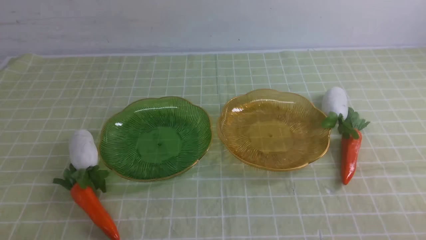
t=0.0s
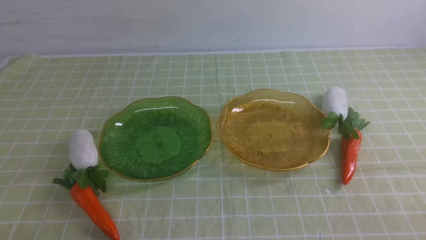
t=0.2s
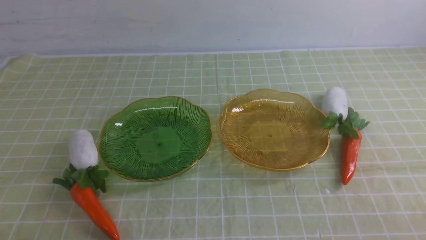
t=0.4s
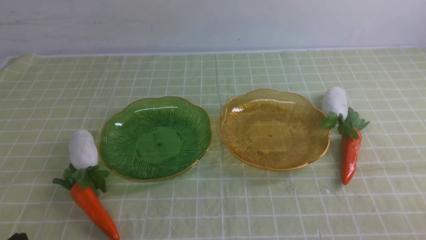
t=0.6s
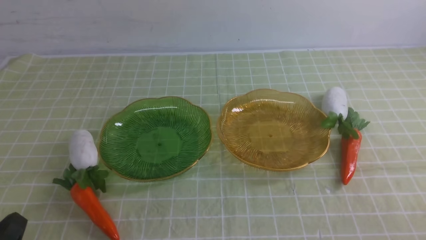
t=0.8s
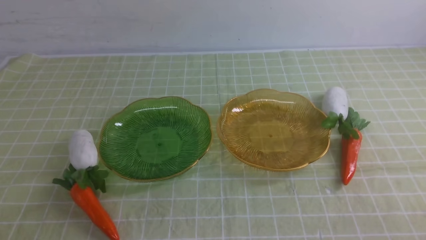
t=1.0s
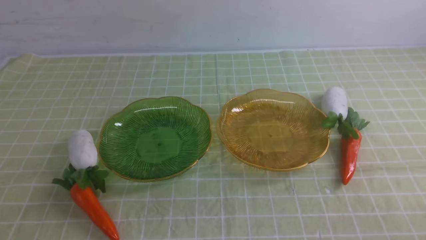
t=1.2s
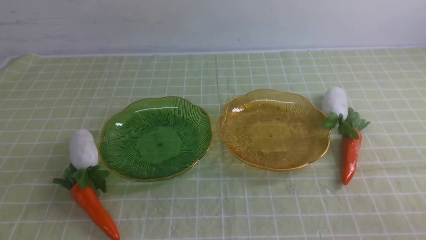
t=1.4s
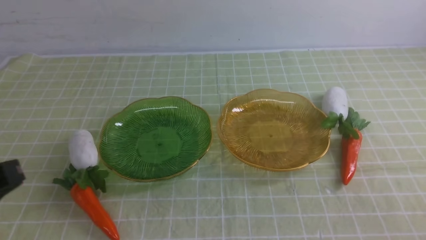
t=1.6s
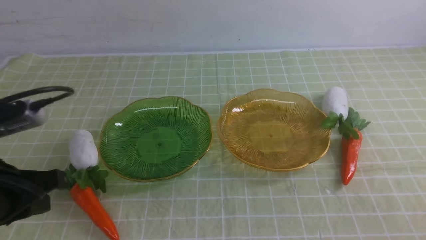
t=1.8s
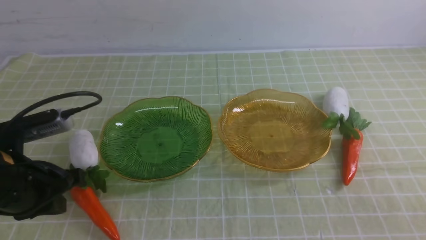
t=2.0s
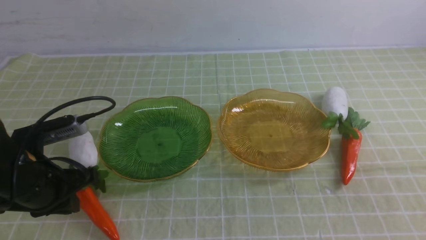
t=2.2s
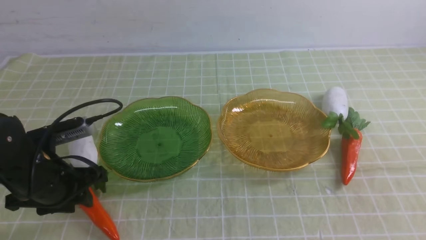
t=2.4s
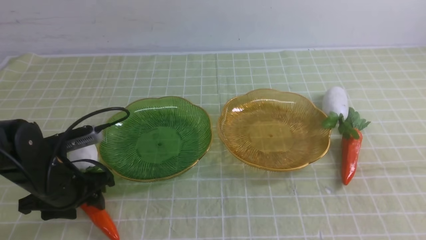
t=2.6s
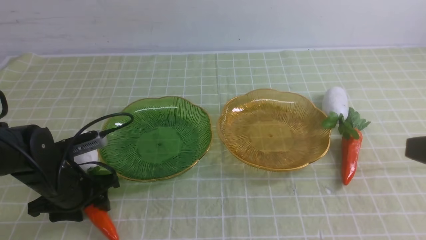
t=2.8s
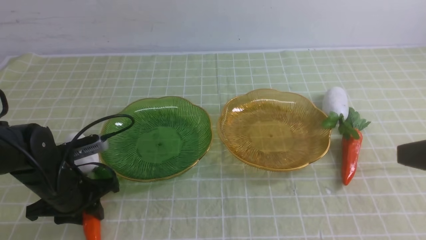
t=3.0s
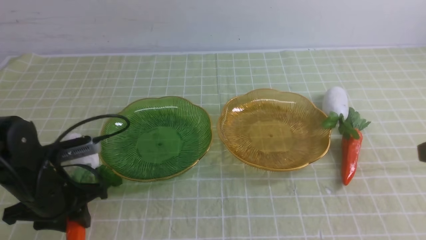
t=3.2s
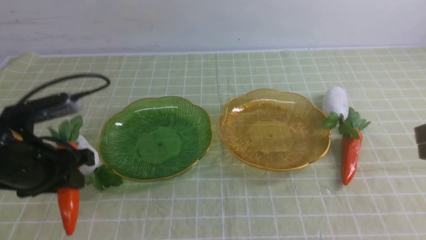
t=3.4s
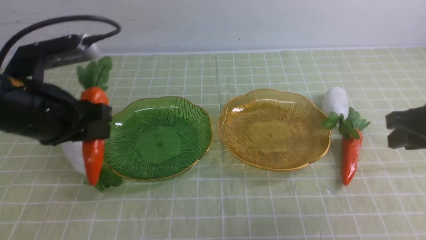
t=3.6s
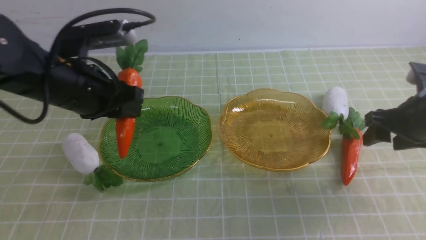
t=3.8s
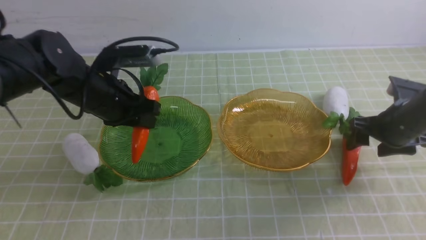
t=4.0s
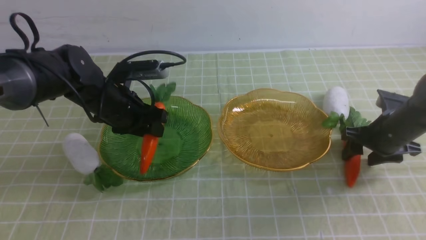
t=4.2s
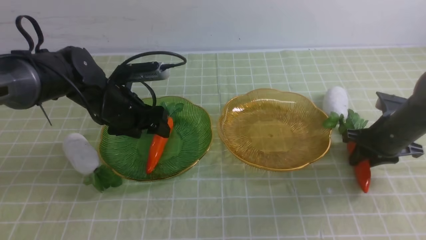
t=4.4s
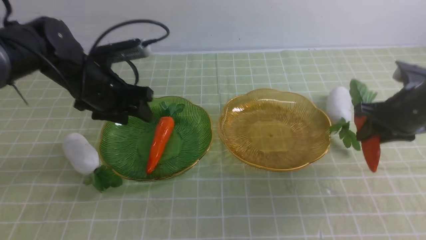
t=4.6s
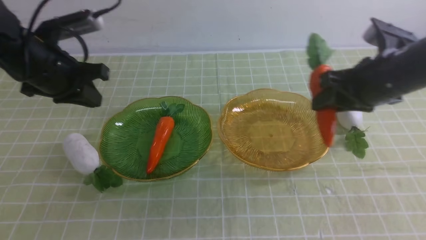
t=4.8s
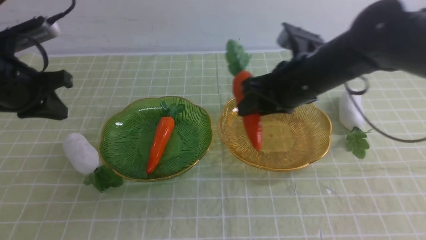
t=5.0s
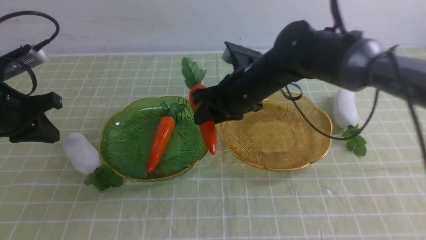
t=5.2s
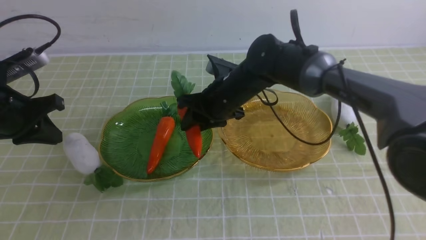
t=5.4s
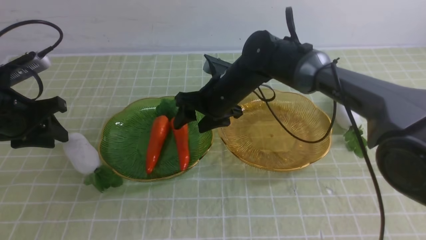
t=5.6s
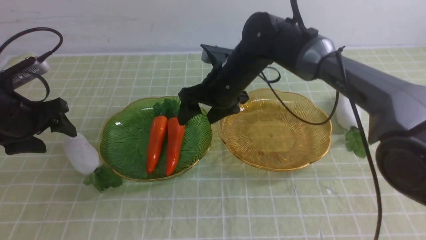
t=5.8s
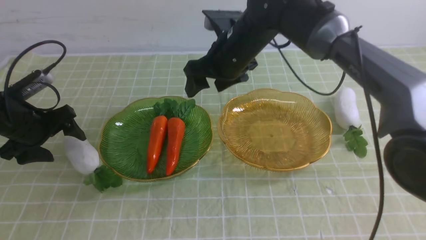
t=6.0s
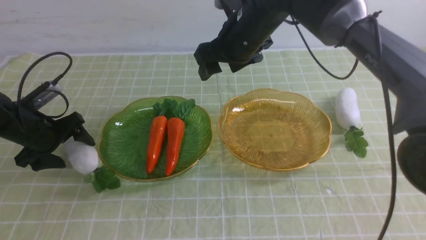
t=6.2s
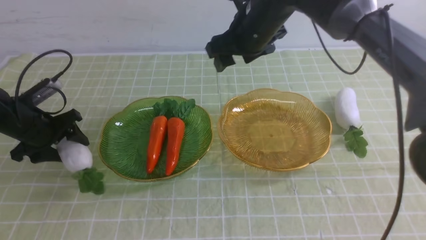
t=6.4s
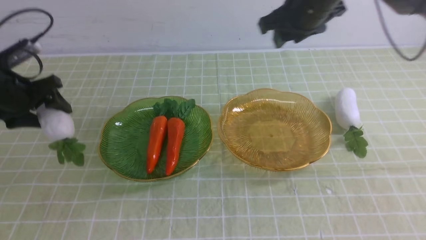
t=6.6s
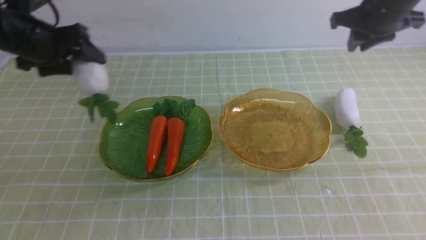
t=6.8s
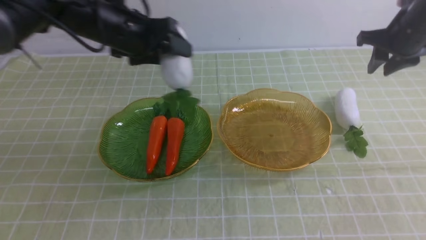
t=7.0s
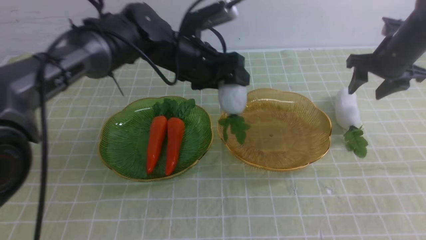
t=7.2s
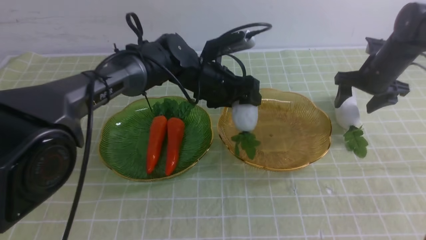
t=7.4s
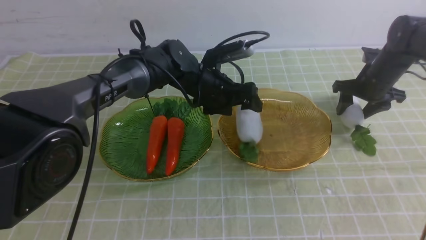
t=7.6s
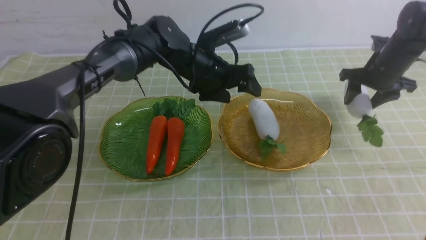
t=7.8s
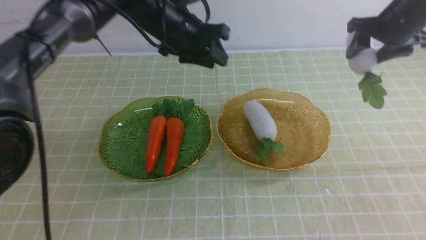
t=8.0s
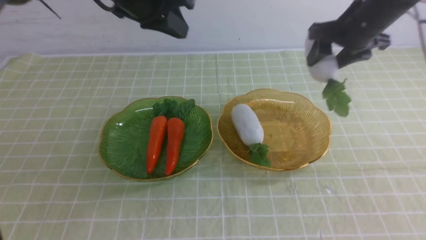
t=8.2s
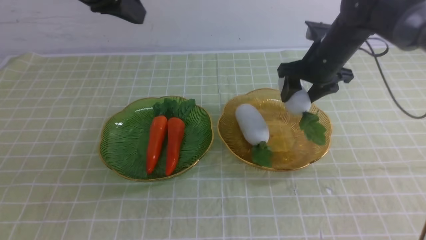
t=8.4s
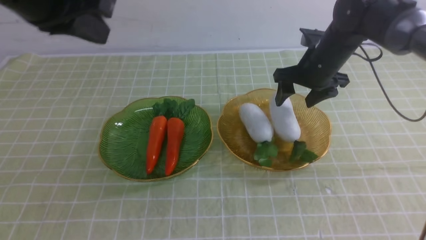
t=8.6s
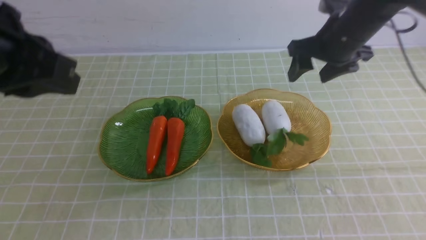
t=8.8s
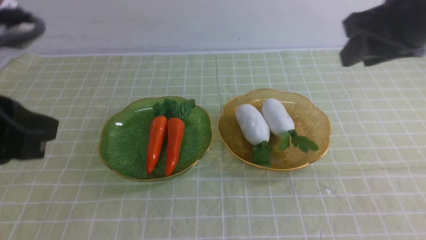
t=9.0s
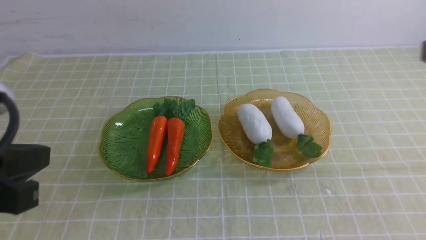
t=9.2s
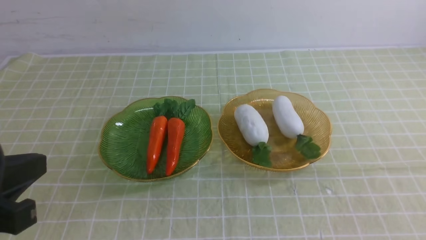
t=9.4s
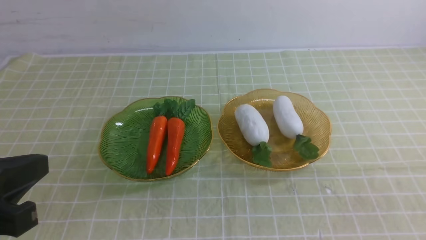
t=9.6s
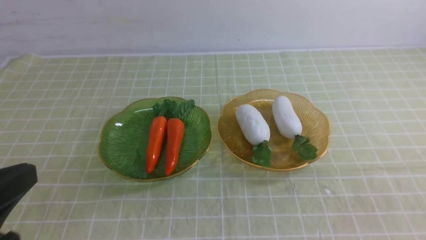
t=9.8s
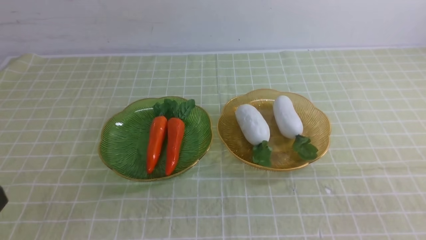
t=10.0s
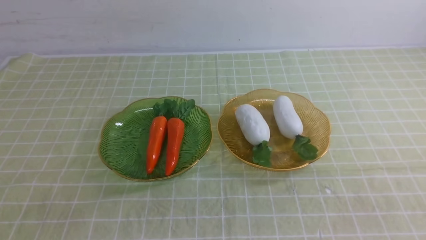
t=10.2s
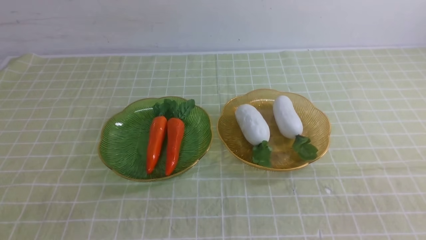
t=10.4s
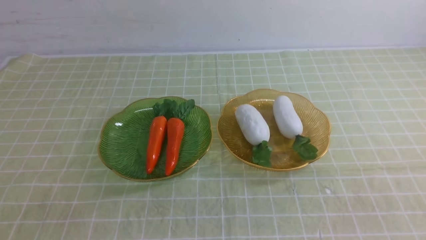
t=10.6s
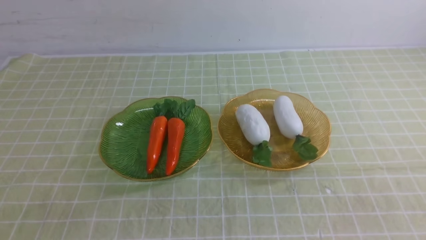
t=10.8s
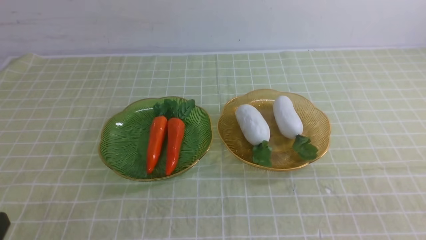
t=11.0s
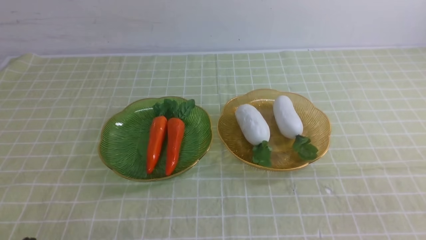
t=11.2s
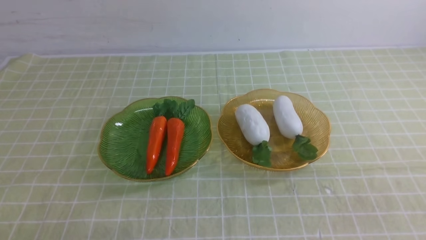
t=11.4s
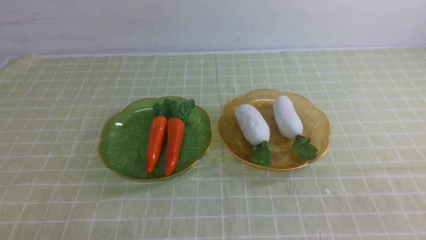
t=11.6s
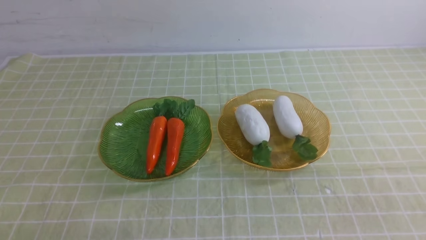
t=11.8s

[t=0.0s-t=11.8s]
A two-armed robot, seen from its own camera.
Step, t=0.0s to t=4.8s: use the left arm to grab a radish and put it into the left plate.
Step, t=5.0s to t=6.4s: use the right arm to grab a carrot and put it into the left plate.
Step, t=6.6s to t=8.0s: use the left arm to grab a radish and put it into the right plate.
Step, t=8.4s to t=10.8s: use the right arm to grab a radish and put it into the right plate.
t=1.4s to t=3.0s: The left gripper is displaced forward and downward by approximately 25 cm, and opens up. The right gripper moves upward and forward, some 15 cm.
t=3.0s to t=4.4s: The left gripper goes roughly 15 cm forward, upward and to the right. Meanwhile the right gripper is displaced forward and downward by roughly 25 cm, and opens its fingers.
t=4.4s to t=6.0s: The left gripper is displaced to the left by about 15 cm, and closes and opens again; the right gripper travels to the left by about 25 cm, and opens up.
t=6.0s to t=7.4s: The two grippers go approximately 30 cm to the right. The right gripper closes and opens again.
t=7.4s to t=8.8s: The right gripper is displaced upward, to the left and backward by about 20 cm, while the left gripper shifts about 35 cm backward, upward and to the left, and closes up.
t=8.8s to t=10.4s: The right gripper shifts roughly 35 cm backward, and closes up. The left gripper is displaced backward and downward by approximately 20 cm.

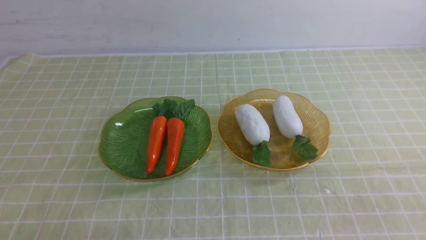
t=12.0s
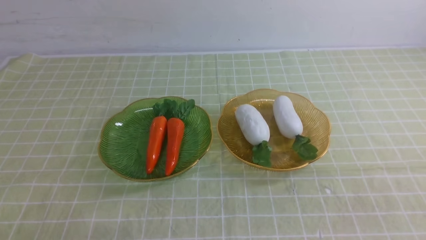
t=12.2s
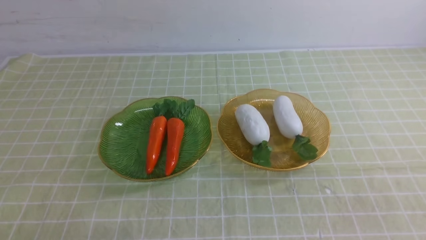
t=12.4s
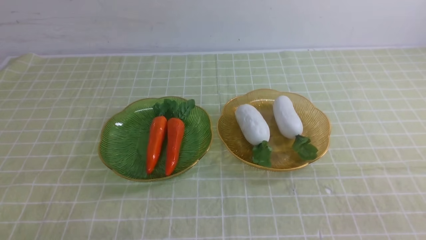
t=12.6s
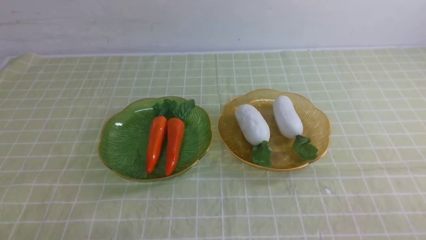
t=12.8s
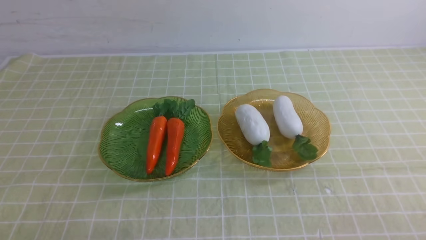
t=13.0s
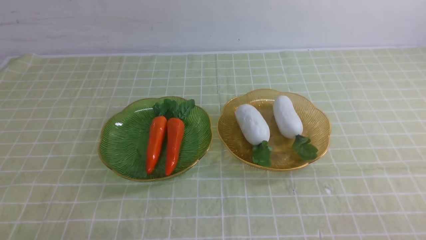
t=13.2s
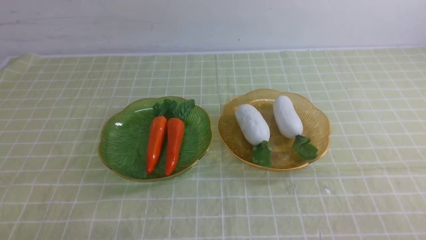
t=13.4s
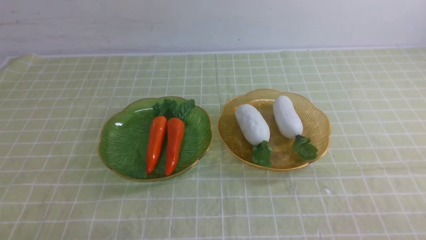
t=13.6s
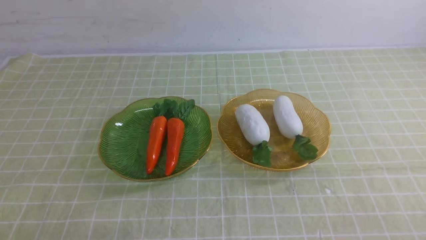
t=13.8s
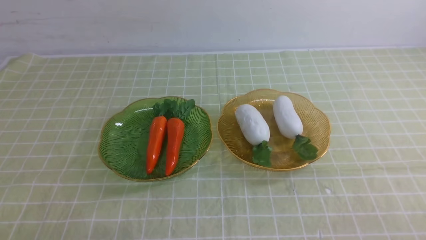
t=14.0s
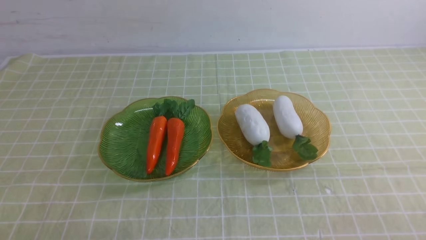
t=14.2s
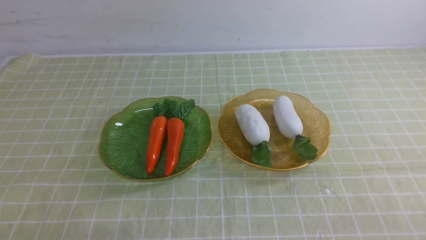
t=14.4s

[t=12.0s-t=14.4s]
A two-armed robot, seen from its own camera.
t=13.2s to t=14.4s: The two grippers keep their place.

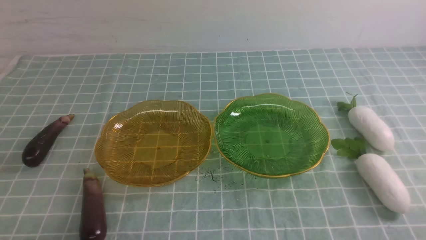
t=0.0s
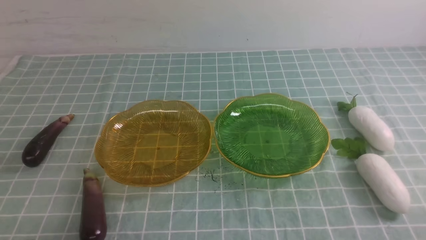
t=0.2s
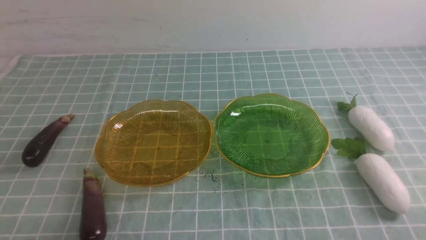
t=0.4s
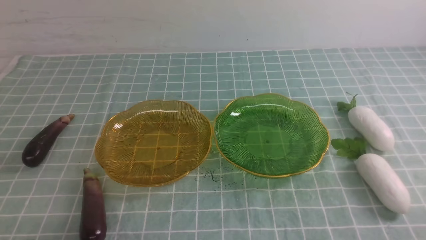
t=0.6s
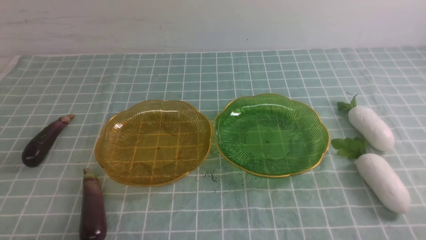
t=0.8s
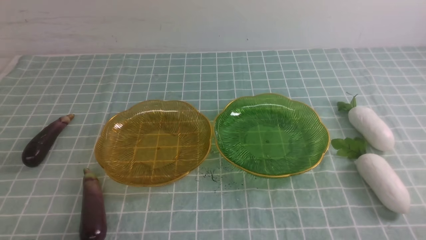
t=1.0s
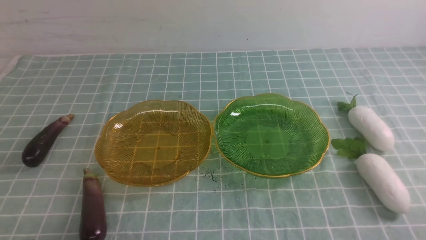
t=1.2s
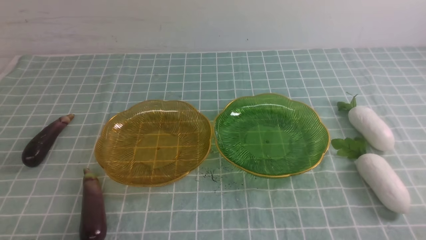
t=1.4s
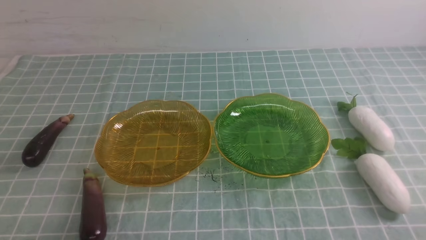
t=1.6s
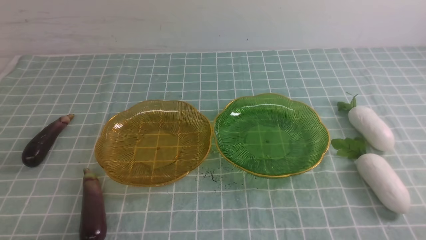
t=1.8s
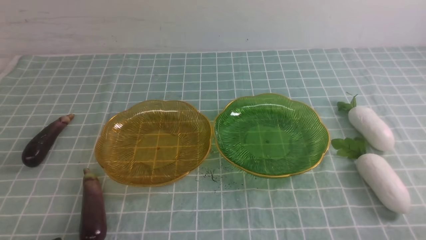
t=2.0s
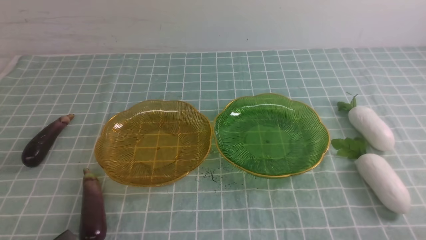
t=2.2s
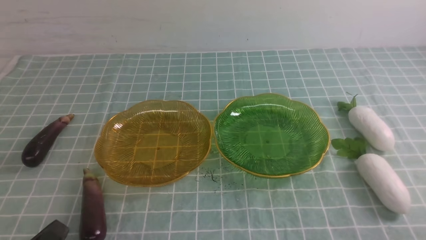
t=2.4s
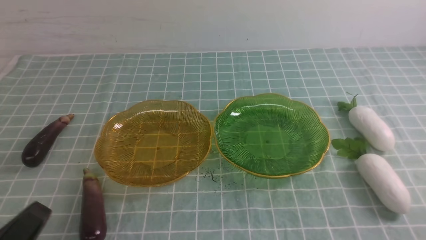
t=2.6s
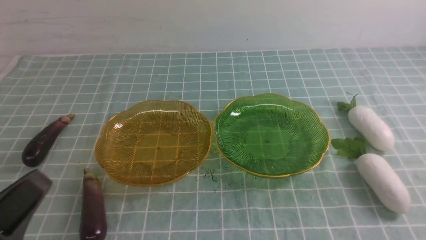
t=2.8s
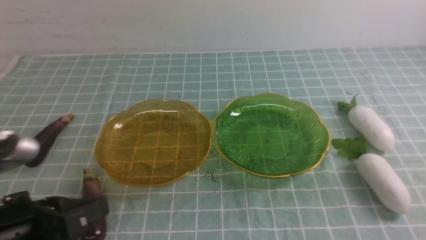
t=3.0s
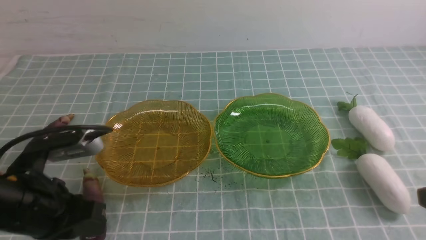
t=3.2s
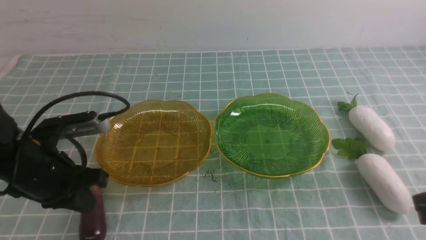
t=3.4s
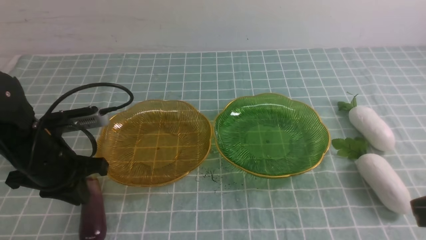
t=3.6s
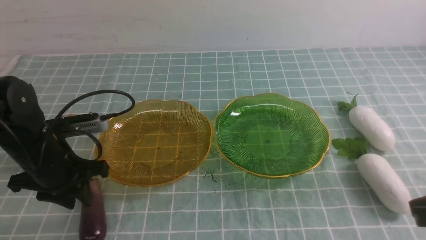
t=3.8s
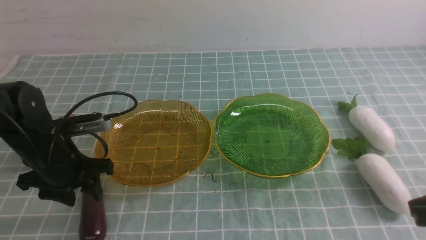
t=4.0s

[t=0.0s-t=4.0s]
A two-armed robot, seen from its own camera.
t=0.0s to t=1.4s: Both grippers stay put.
t=1.4s to t=2.6s: The left gripper shifts roughly 10 cm upward.
t=2.6s to t=4.0s: The left gripper heads forward, covering about 25 cm, and opens.
